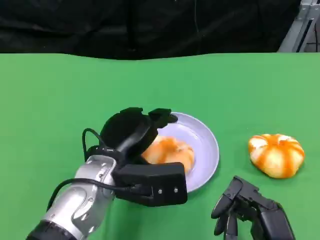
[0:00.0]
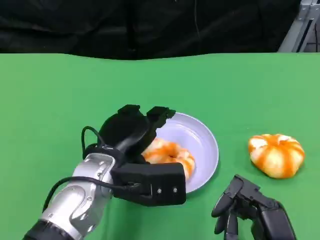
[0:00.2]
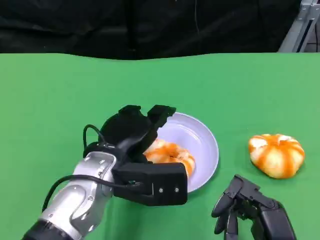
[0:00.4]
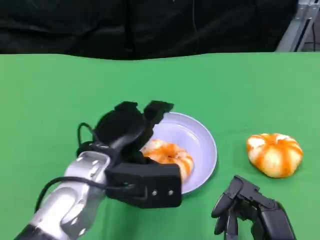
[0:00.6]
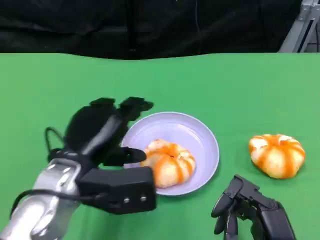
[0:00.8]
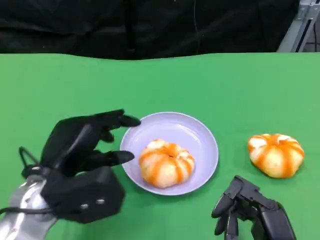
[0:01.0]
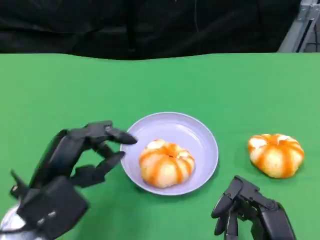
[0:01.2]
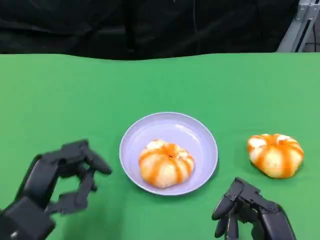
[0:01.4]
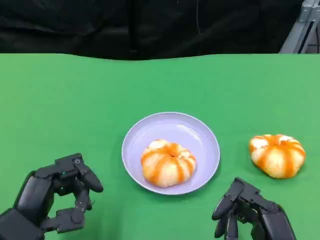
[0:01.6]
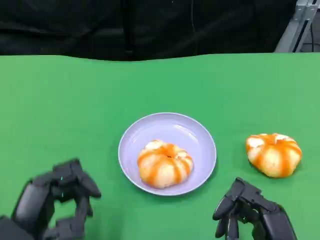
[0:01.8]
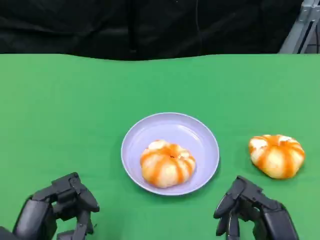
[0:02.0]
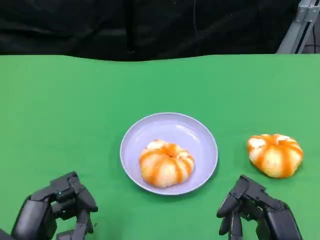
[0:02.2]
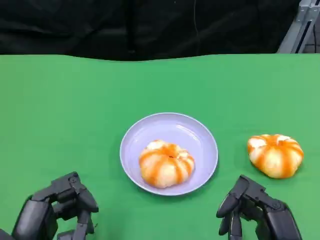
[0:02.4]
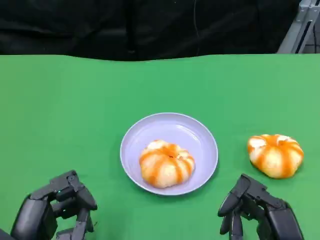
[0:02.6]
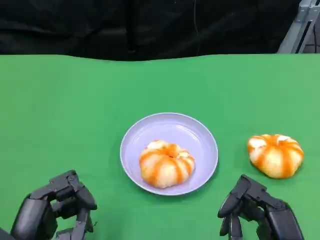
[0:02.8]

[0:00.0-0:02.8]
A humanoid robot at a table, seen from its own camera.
Task of the whole recording: Grasp the bread from the table and place it into the plate.
0:00.0 to 0:01.4: The left hand goes roughly 15 cm to the left and backward.
0:01.4 to 0:02.8: There are only small adjustments of the hands.

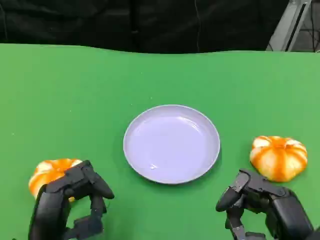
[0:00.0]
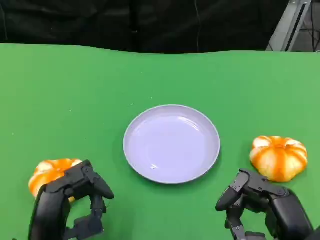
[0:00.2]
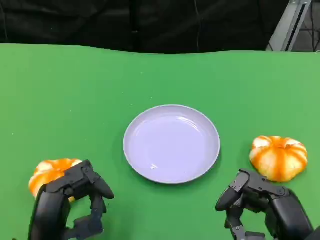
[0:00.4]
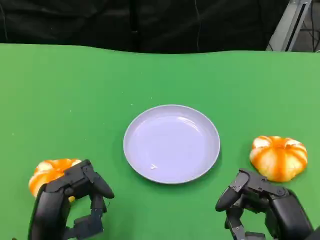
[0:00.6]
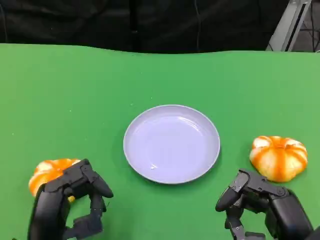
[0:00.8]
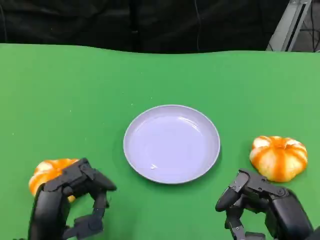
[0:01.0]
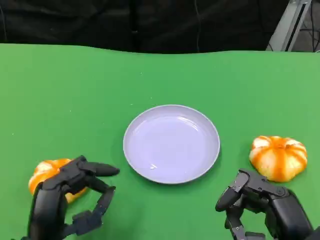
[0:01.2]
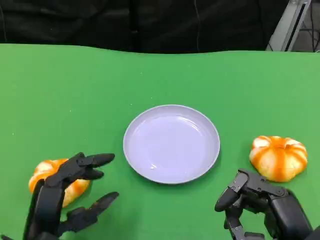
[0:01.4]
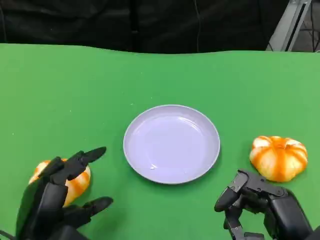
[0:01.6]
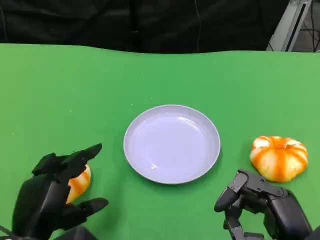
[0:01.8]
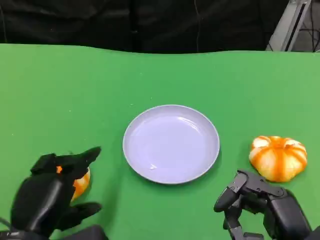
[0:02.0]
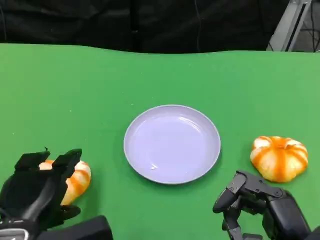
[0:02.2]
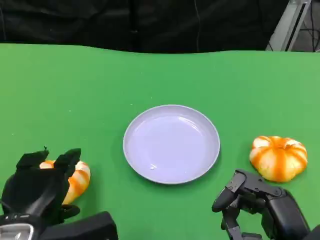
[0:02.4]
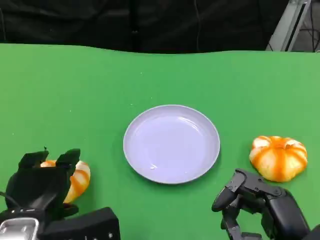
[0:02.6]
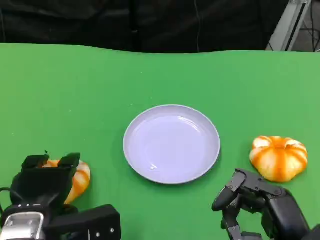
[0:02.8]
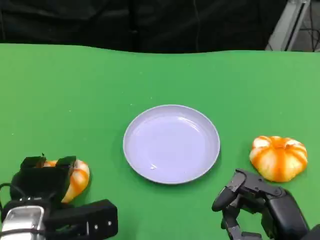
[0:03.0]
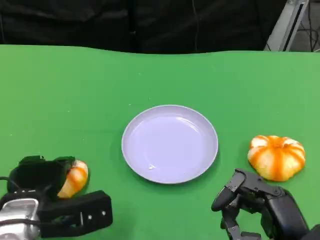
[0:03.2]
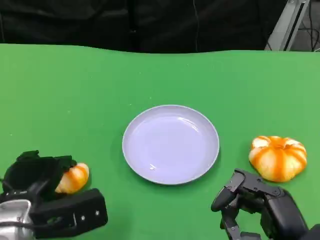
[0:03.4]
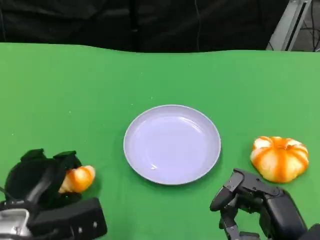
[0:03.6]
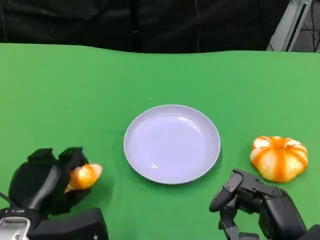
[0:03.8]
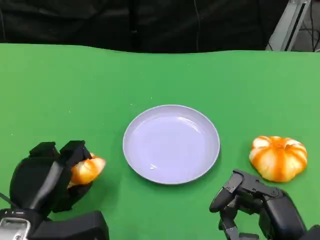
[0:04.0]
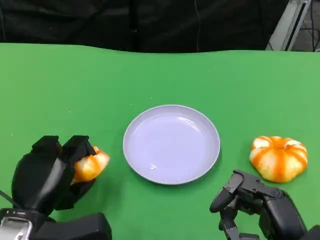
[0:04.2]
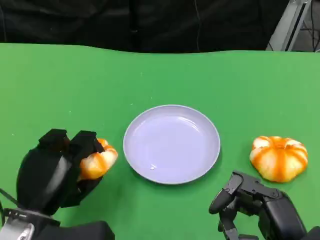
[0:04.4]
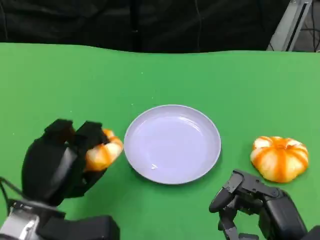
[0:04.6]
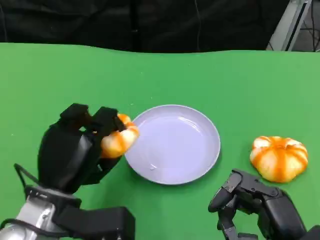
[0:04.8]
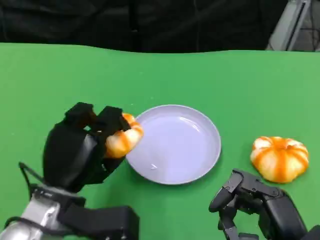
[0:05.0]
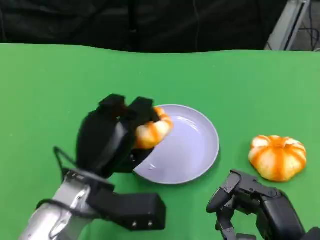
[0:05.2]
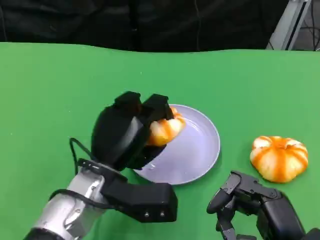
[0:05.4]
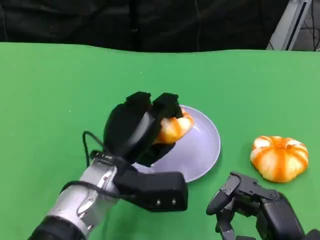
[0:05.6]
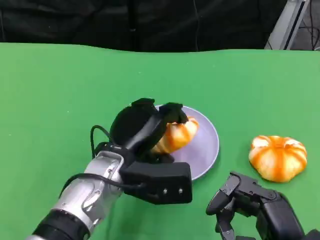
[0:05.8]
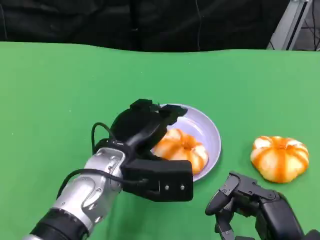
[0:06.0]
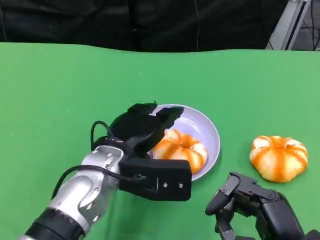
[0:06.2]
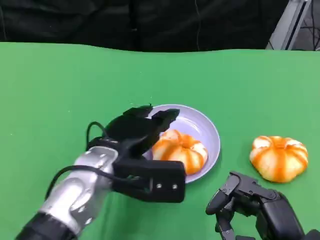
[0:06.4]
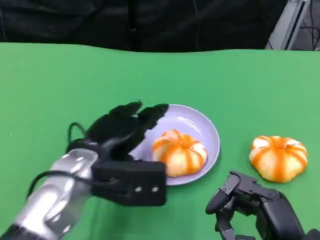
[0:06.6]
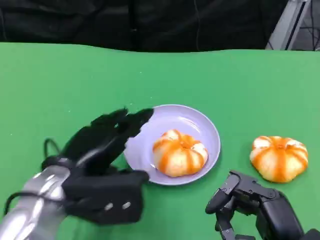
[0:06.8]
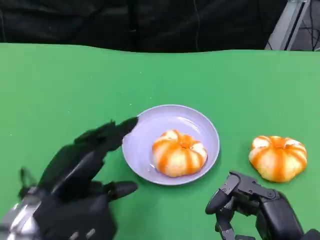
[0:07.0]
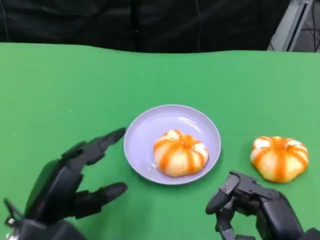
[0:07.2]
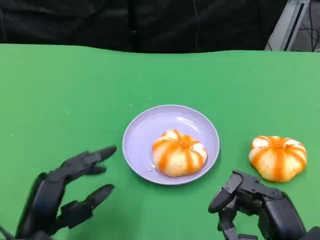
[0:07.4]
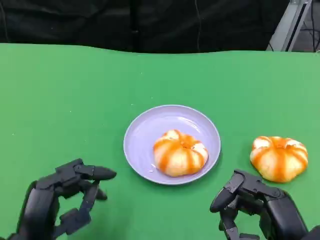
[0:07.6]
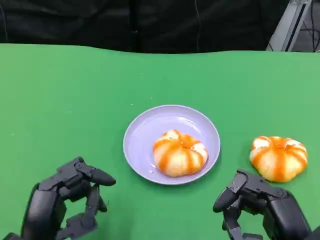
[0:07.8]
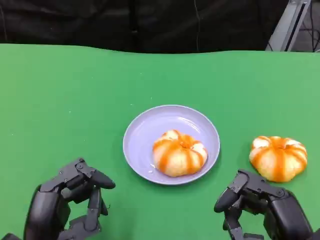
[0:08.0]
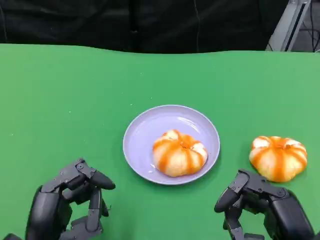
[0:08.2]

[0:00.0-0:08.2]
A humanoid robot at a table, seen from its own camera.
Task of the whole recording: Grasp the bread from the table and place it into the plate.
0:01.6 to 0:03.2: The left hand shifts approximately 5 cm forward.
0:03.2 to 0:05.0: The left hand is displaced to the right by roughly 5 cm.
0:06.6 to 0:08.2: The left hand travels backward, downward and to the left by some 15 cm.

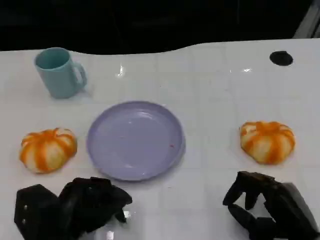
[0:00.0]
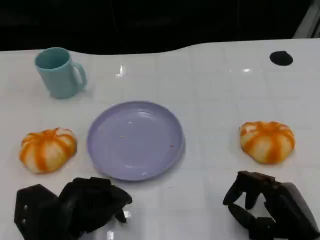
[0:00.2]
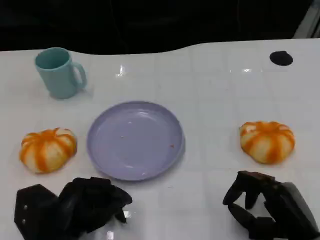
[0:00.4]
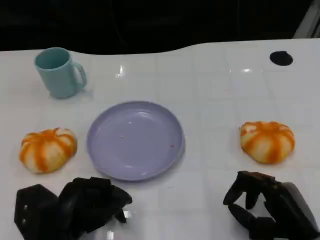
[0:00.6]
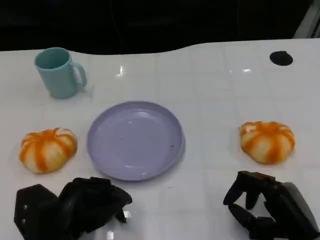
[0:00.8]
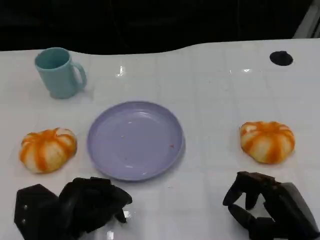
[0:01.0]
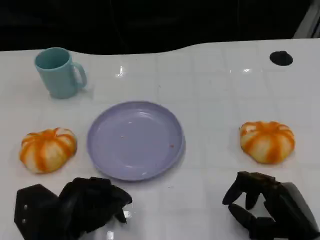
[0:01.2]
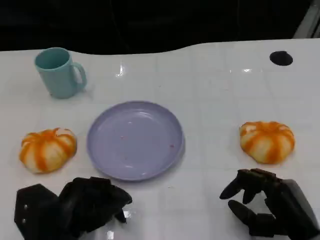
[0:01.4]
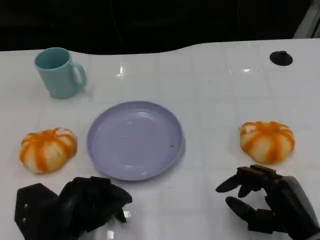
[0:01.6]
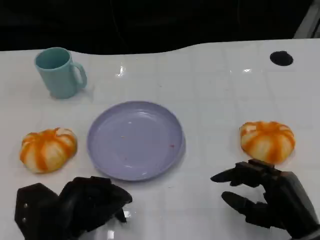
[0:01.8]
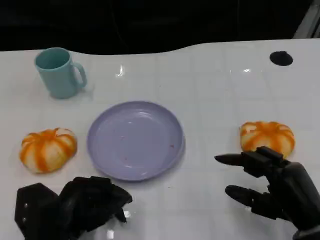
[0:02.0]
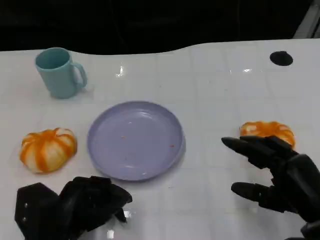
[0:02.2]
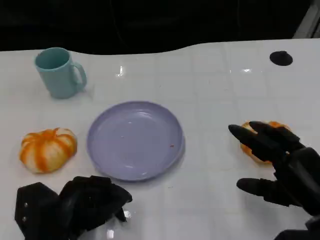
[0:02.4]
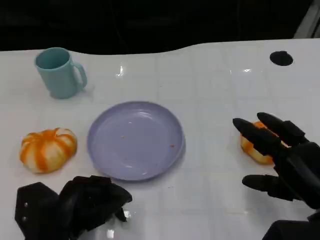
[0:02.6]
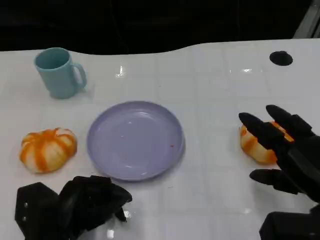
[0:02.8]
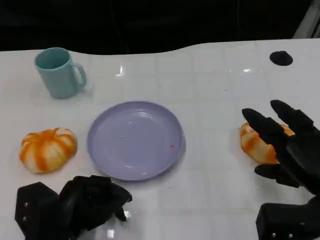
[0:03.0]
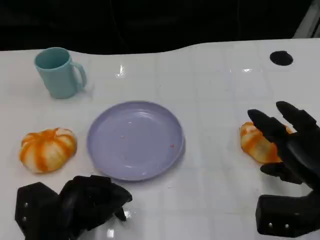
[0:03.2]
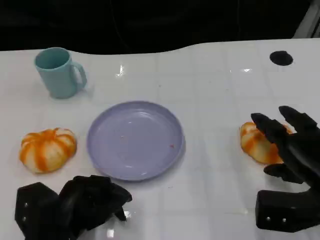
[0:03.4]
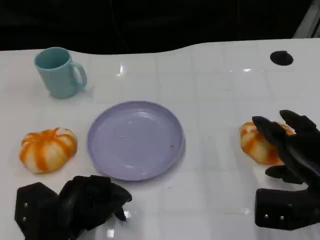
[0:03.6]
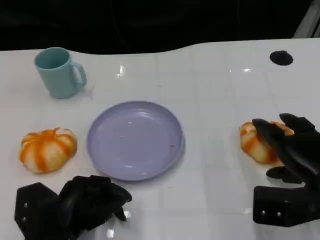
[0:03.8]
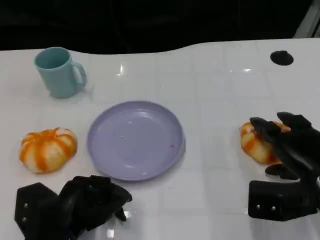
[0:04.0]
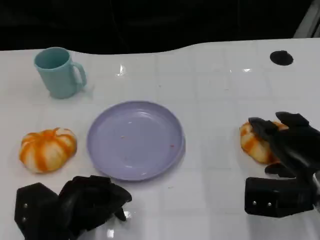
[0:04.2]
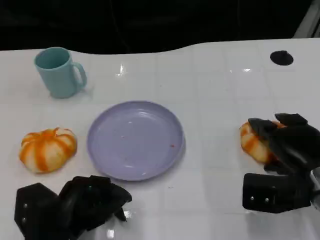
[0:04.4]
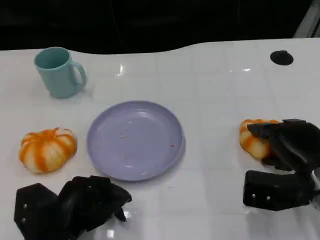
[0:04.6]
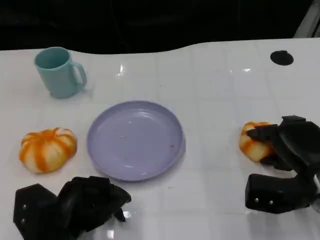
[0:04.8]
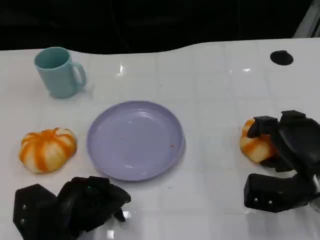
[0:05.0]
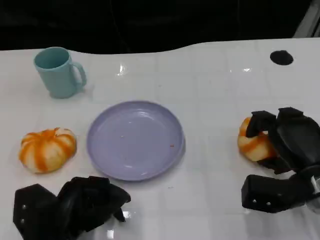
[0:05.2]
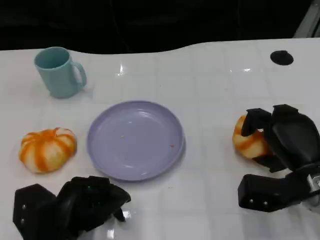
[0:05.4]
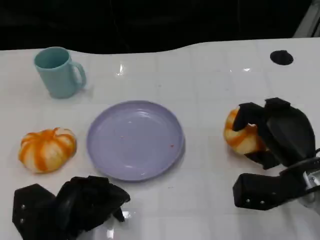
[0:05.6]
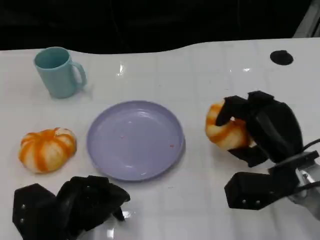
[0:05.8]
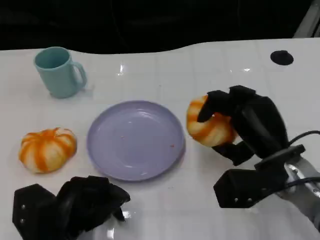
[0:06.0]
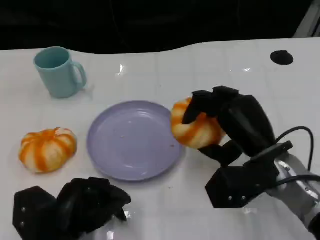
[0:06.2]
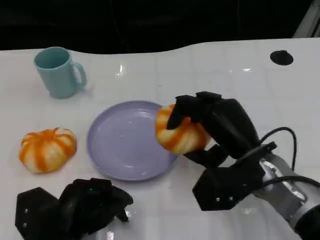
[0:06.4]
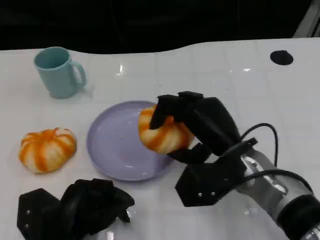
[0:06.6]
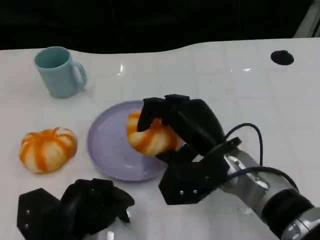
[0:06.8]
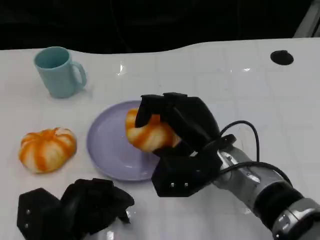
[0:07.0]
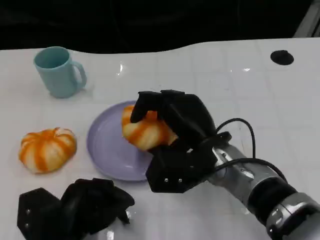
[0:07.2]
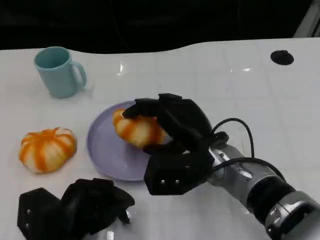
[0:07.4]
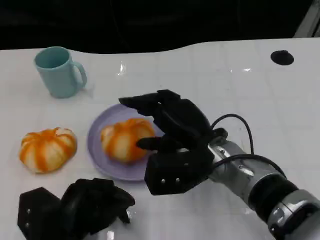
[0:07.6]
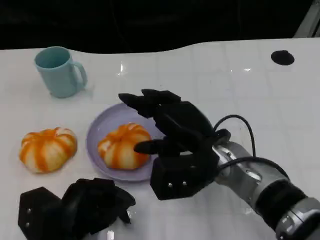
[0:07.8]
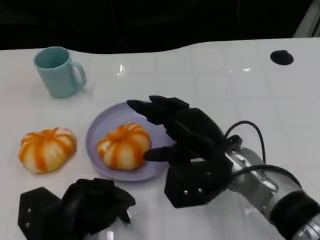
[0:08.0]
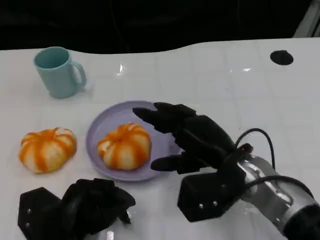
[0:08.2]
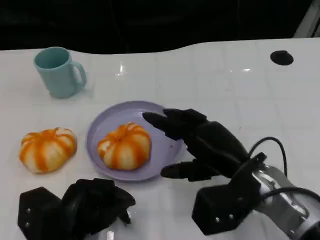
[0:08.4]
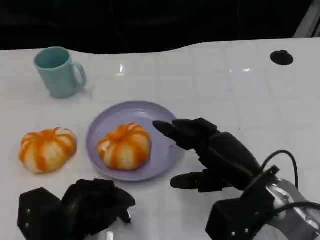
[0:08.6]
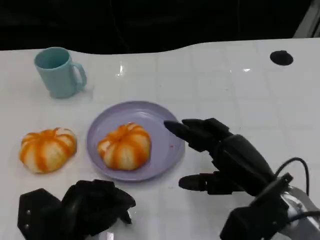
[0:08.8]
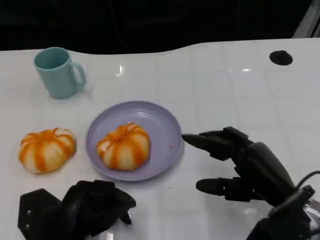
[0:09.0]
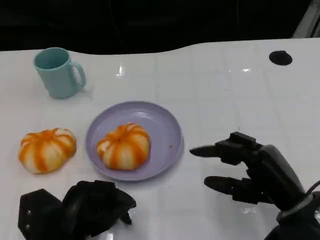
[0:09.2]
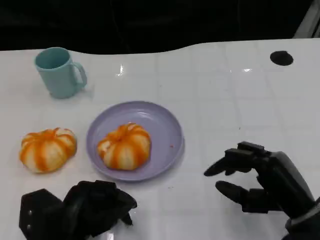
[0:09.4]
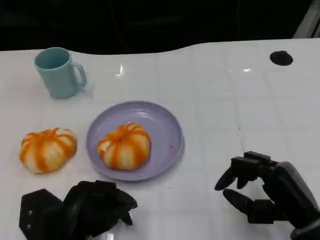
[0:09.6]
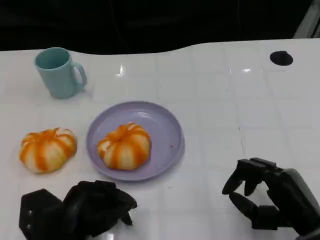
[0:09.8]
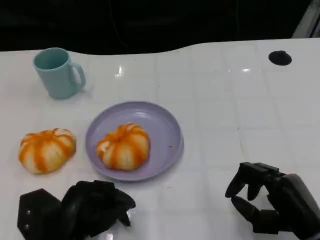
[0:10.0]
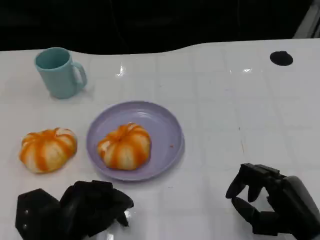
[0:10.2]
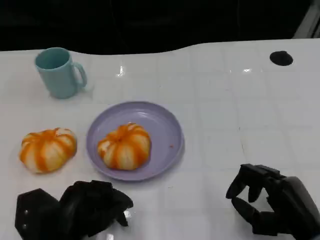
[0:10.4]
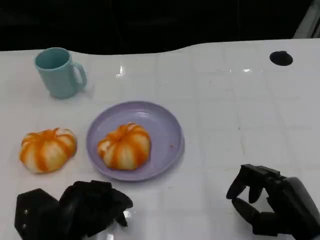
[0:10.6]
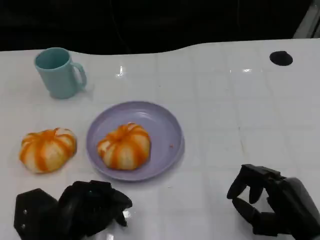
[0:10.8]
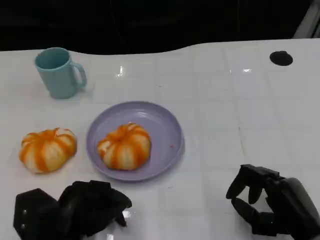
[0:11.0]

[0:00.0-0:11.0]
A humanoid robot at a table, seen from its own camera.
Task of the whole recording: Grasp the bread from the table and place it into the plate.
0:00.0 to 0:01.6: Both hands stay about where they are.
0:01.6 to 0:03.2: The right hand travels upward and forward by about 5 cm.
0:03.2 to 0:04.8: The right hand changes place by some 5 cm.
0:04.8 to 0:06.2: The right hand goes some 10 cm to the left and upward.
0:06.2 to 0:07.8: The right hand travels to the left by about 5 cm.
0:07.8 to 0:09.4: The right hand is displaced to the right and backward by roughly 15 cm.
0:09.4 to 0:11.0: There are only small adjustments of the hands.
